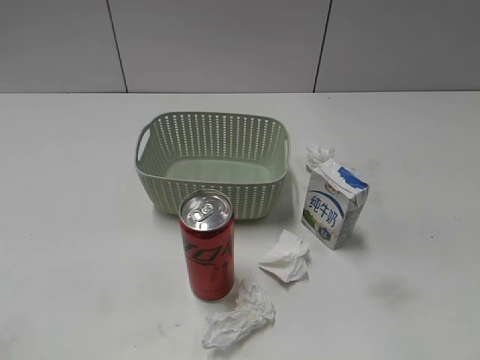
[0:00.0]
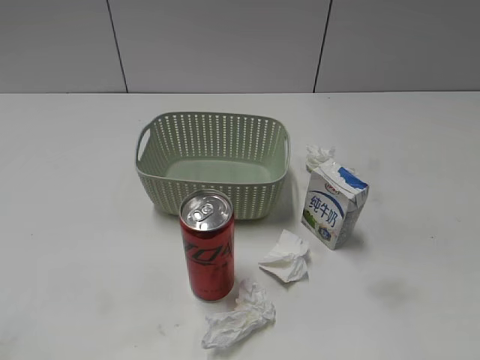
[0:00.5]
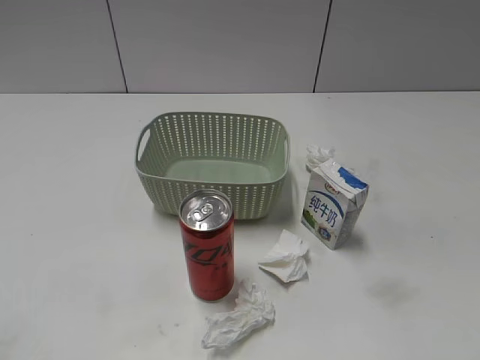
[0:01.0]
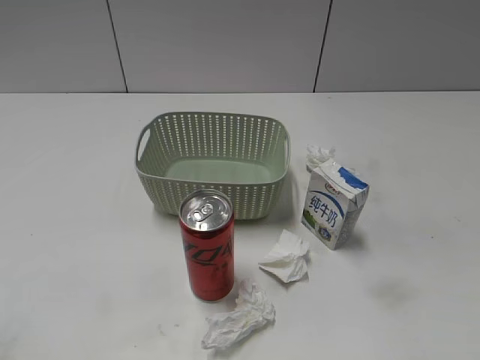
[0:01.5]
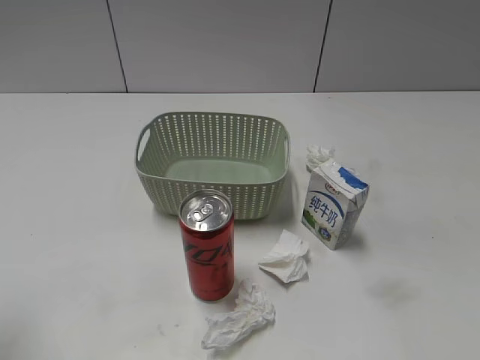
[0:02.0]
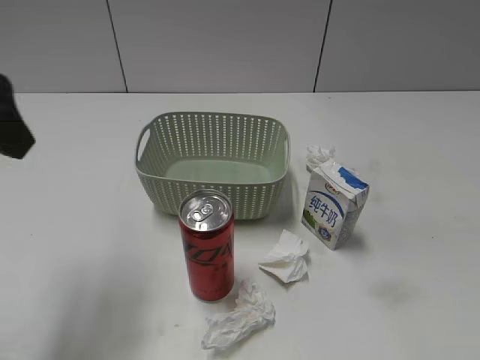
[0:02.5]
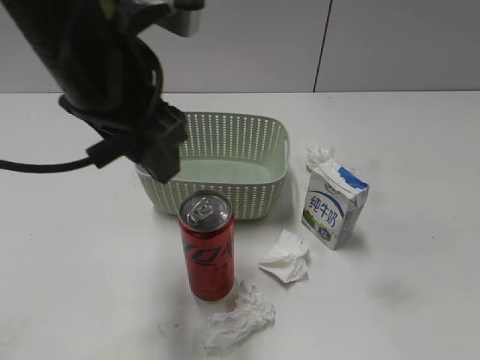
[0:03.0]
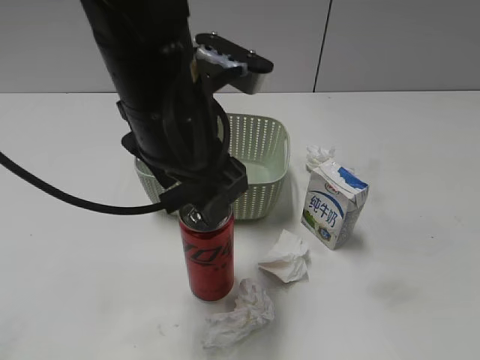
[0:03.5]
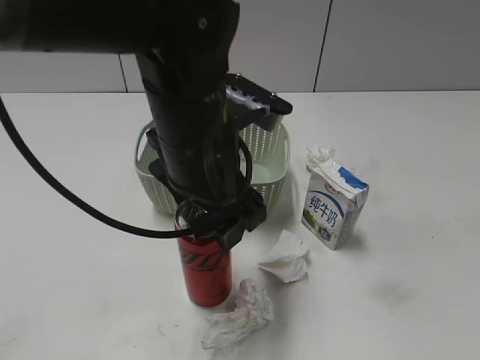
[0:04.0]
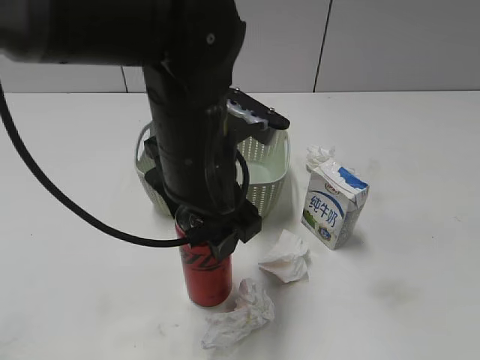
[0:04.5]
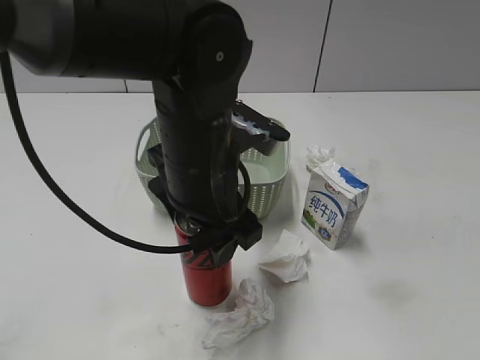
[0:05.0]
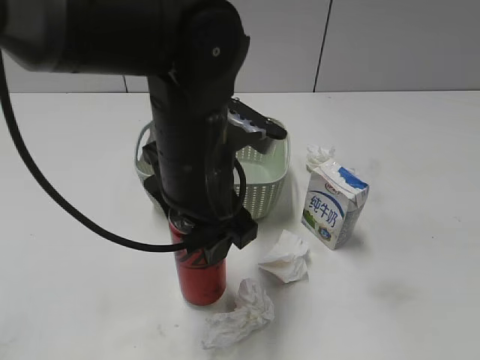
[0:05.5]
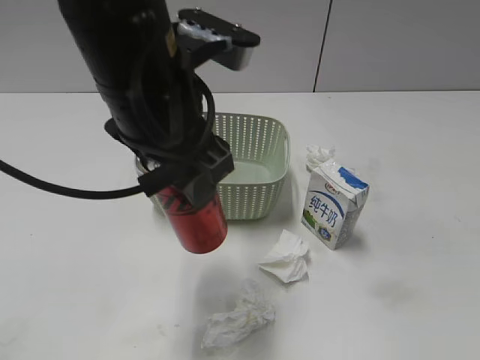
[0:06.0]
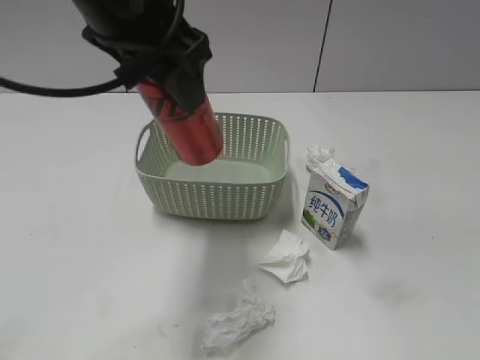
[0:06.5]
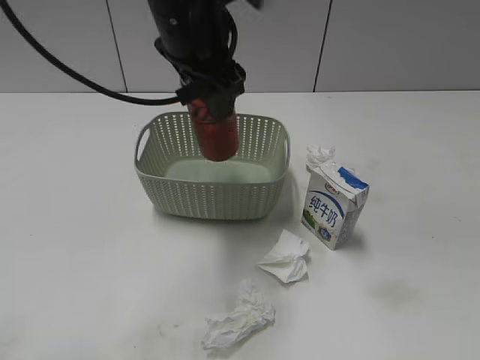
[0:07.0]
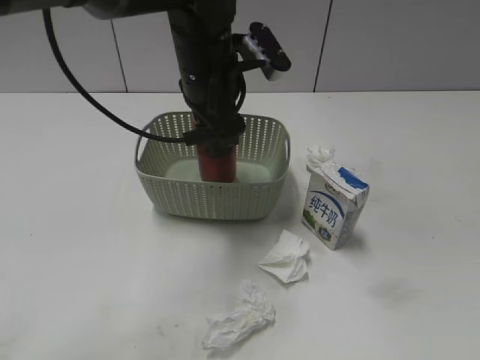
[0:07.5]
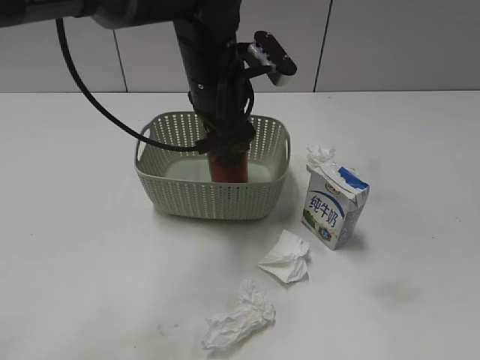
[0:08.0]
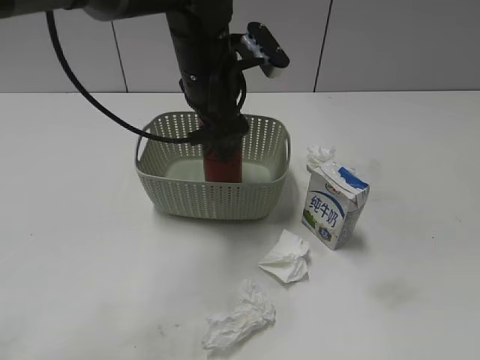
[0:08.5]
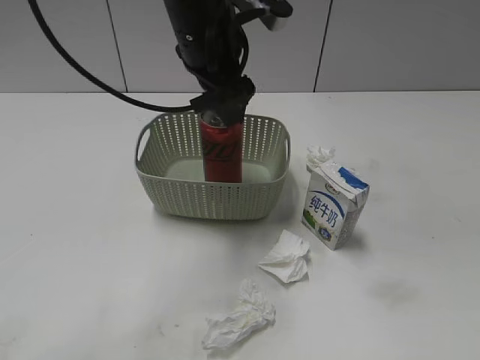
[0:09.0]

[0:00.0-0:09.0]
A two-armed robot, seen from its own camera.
Step, 0:02.5 to 0:05.0: Grasp the cola can with left gripper.
0:02.0 to 0:04.5: The left gripper goes roughly 30 cm to the right and forward, and opens.
0:04.5 to 0:07.0: The left gripper shifts approximately 15 cm forward and upward, and closes.
0:07.0 to 0:09.0: The left gripper opens.

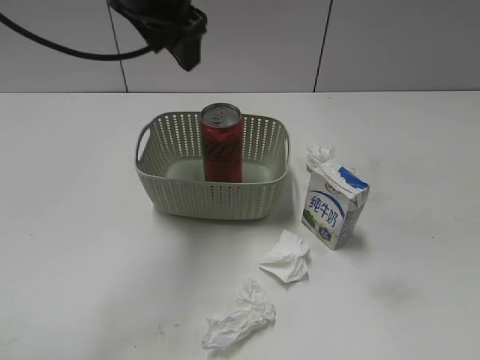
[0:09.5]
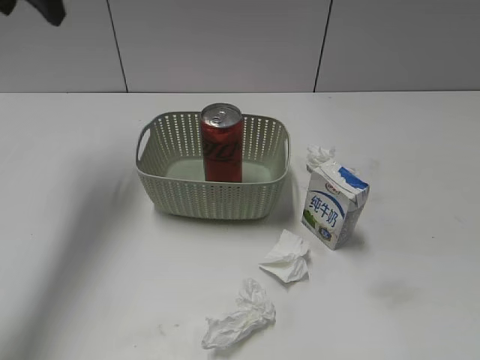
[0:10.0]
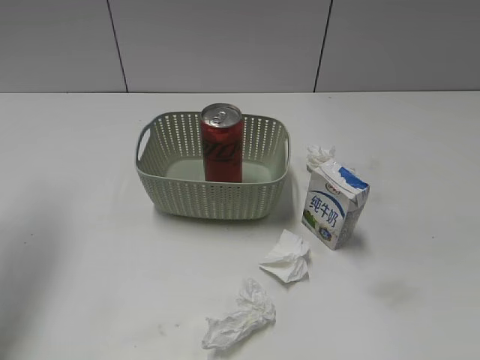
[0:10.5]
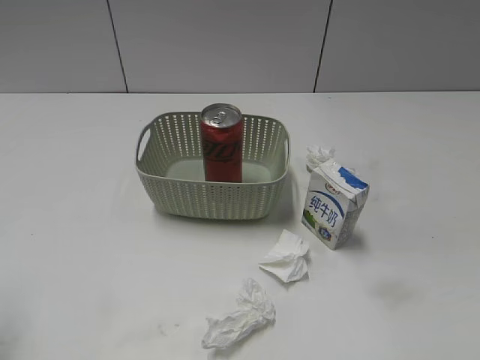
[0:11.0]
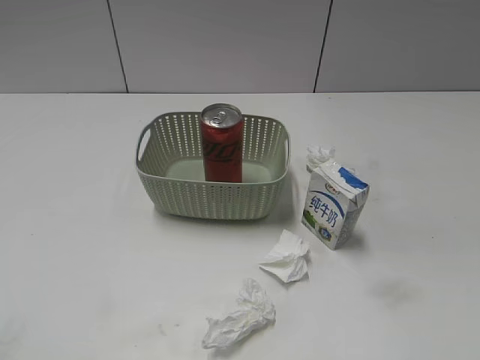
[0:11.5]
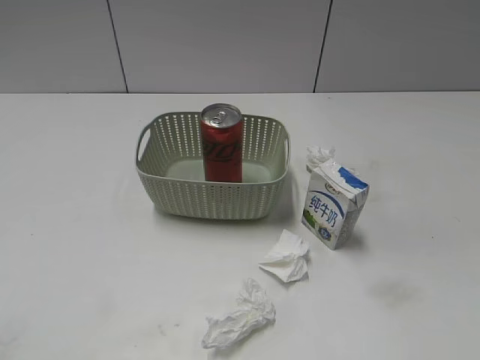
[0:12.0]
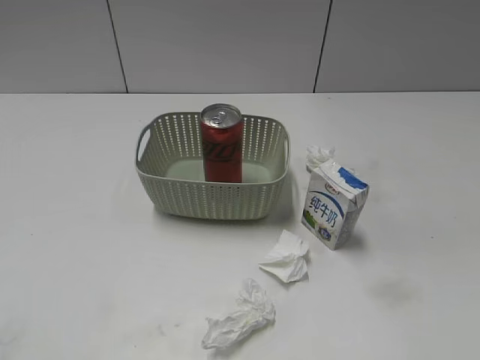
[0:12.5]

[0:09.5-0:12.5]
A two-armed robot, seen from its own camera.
0:09.5 to 0:11.0: The left gripper is displaced to the left and backward by about 35 cm.
